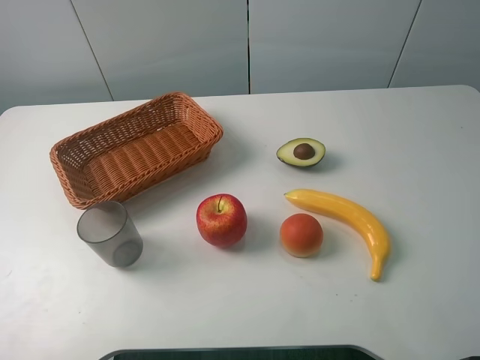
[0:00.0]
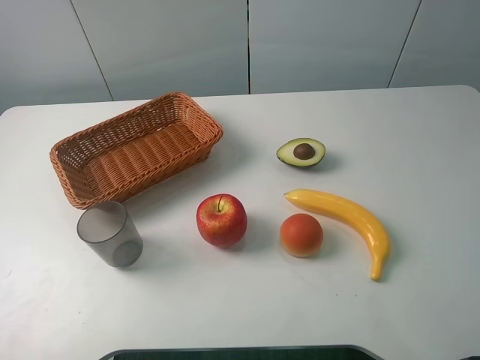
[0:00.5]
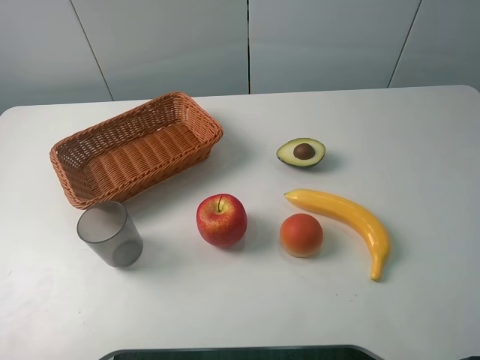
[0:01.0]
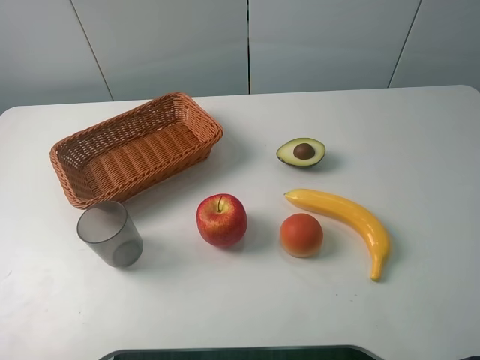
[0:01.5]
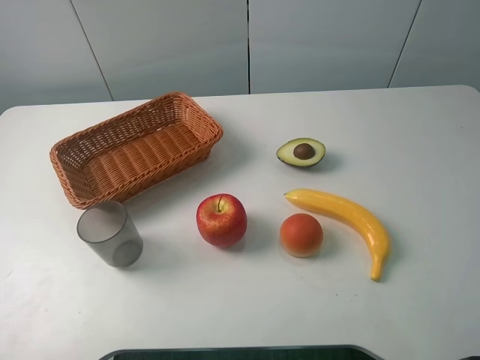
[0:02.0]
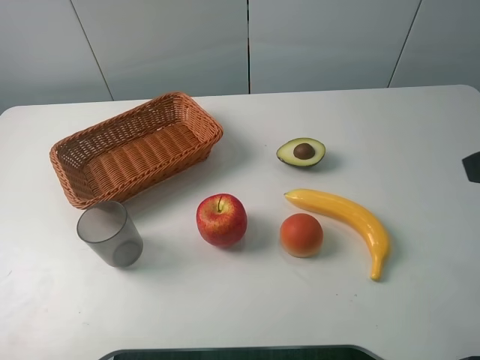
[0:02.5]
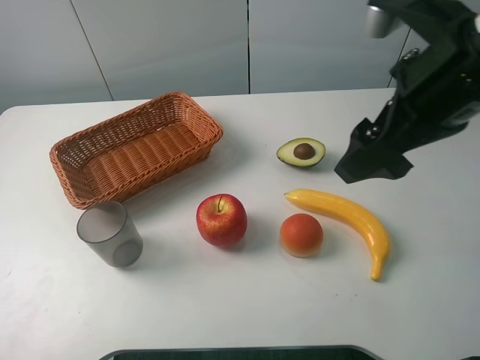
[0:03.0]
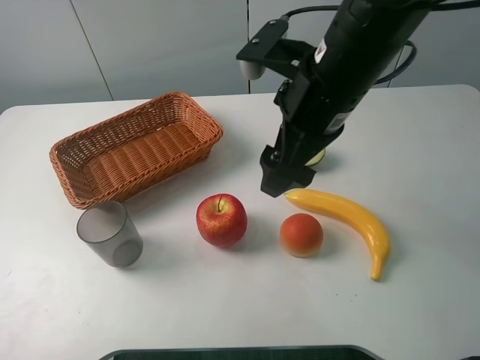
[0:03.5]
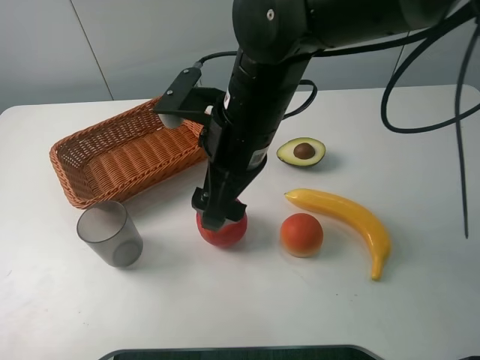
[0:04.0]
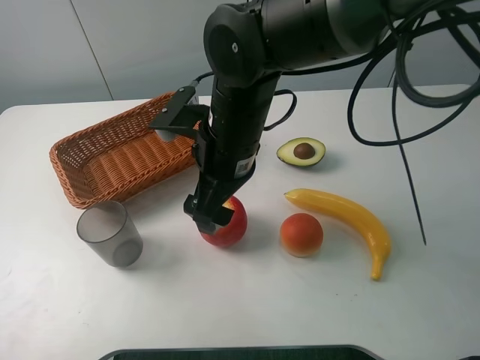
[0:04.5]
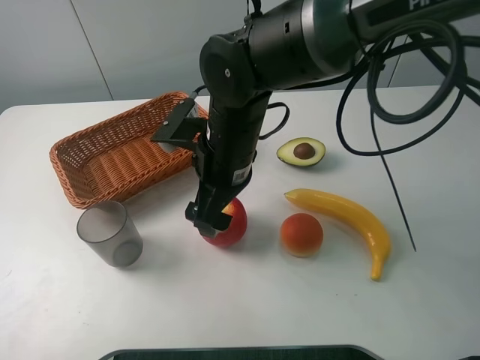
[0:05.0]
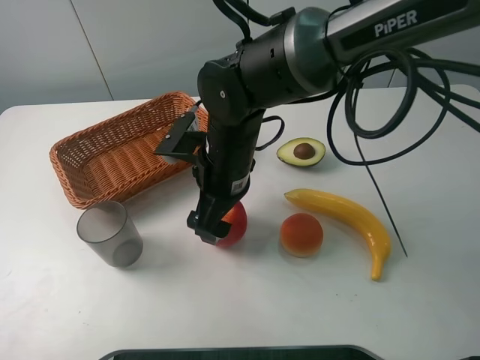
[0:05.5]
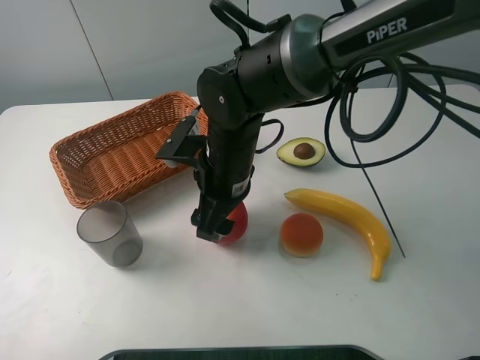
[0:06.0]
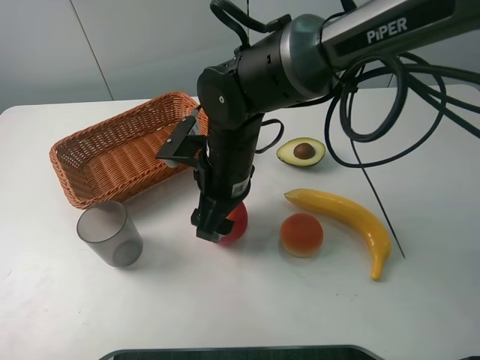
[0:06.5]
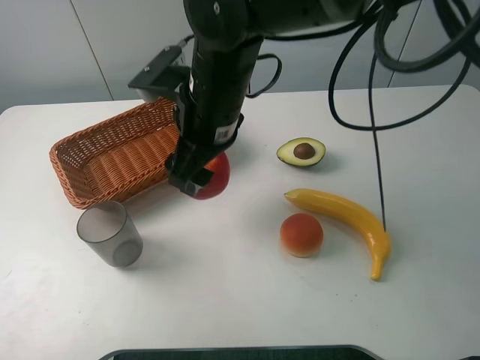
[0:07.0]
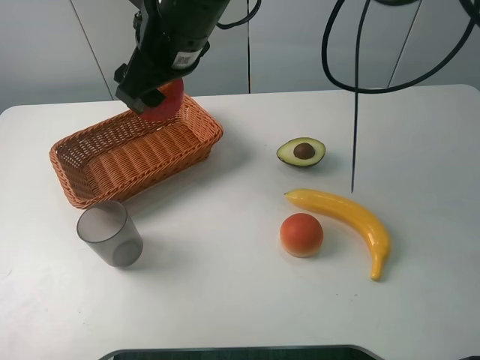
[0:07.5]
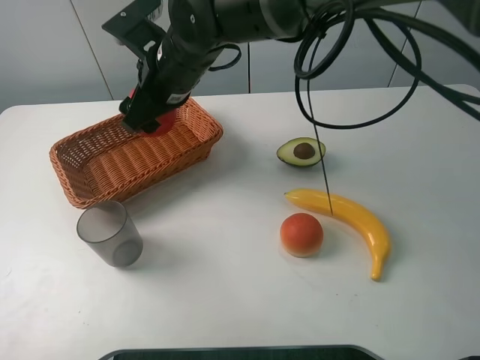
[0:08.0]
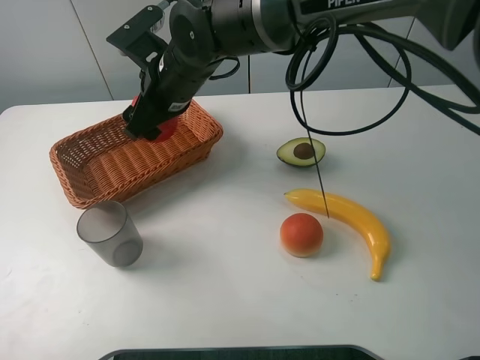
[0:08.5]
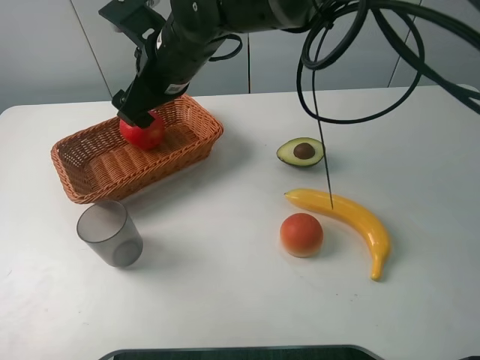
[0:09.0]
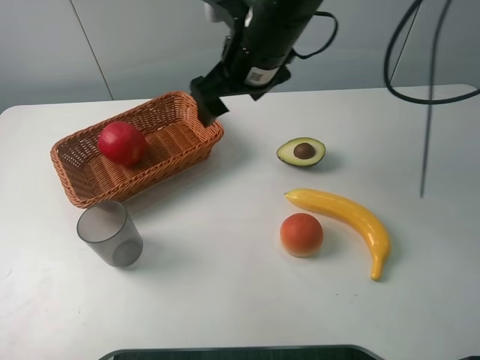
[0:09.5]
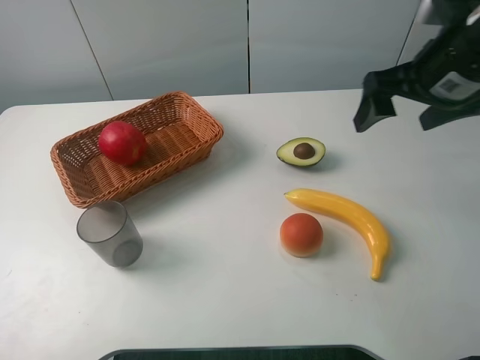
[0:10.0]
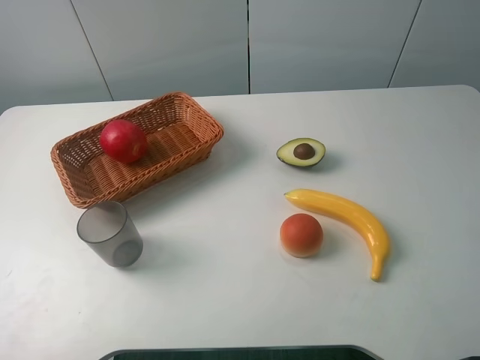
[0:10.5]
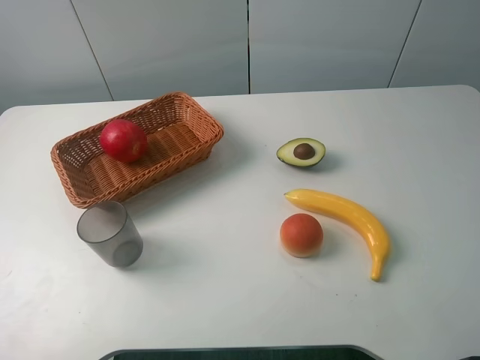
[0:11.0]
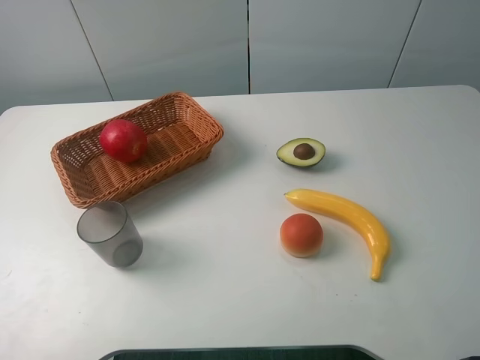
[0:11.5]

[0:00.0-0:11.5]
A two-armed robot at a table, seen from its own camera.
Task of the whole recording: randomly pick up an item from the table and put it in the basket.
Step, 0:00.0 to 0:06.0: Grasp the apple with the right gripper.
Step, 0:06.5 to 0:09.0: Place the apple into the basket with the right gripper.
0:02.0 to 0:04.0: The right gripper goes about 35 cm to the left and forward.
0:04.0 to 0:06.0: The right gripper heads downward, covering about 10 cm, and closes its fingers.
0:06.0 to 0:07.5: The right gripper shifts approximately 15 cm upward.
0:07.5 to 0:09.5: The right gripper goes some 10 cm to the right, and opens its fingers.
0:09.5 to 0:11.5: The right gripper shifts roughly 40 cm backward and to the right.

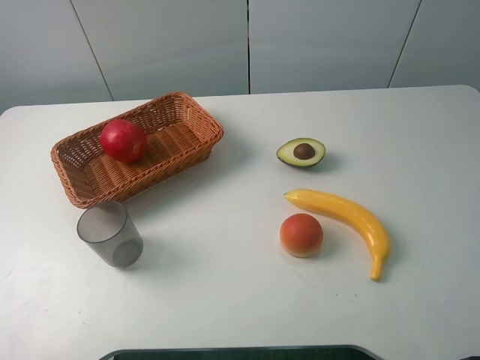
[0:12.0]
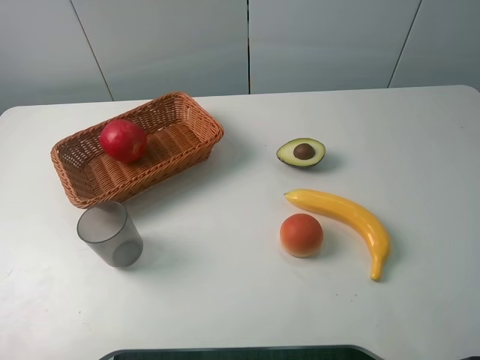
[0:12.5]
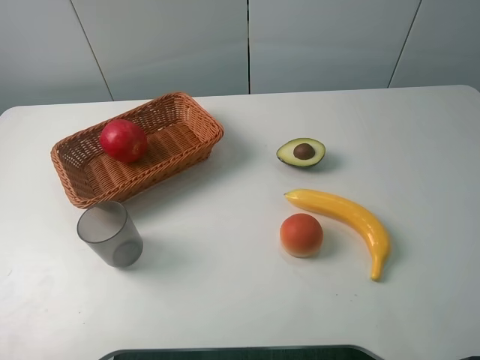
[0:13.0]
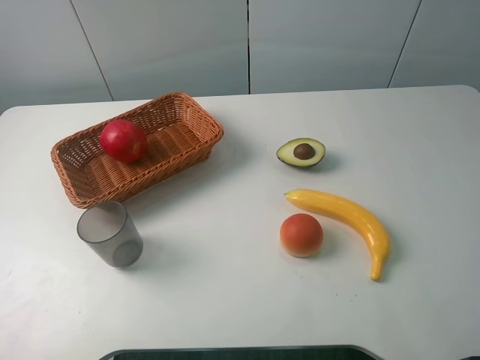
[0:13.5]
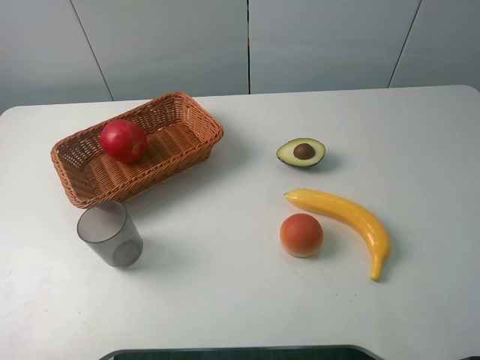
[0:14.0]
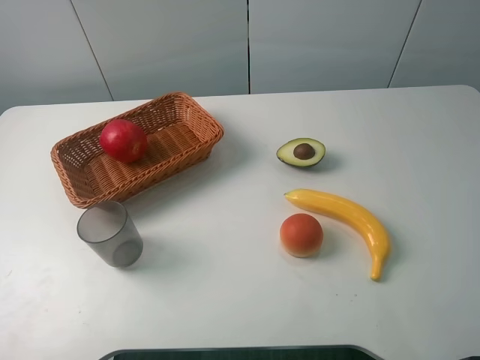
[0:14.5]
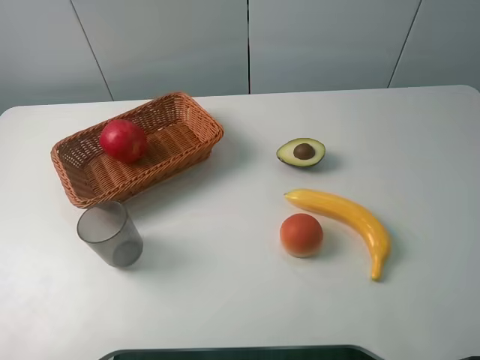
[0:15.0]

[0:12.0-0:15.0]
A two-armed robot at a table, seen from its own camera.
Task of the whole recording: randomly pick up an item from the table and put it in the basket.
0:13.5 to 0:15.0: Both grippers stay put.

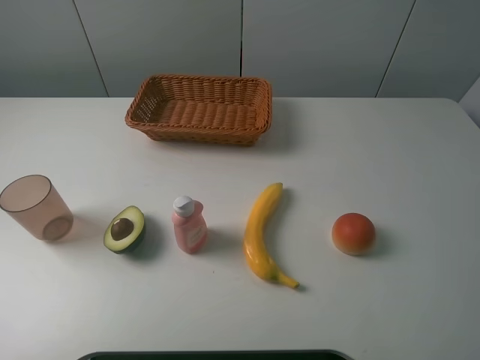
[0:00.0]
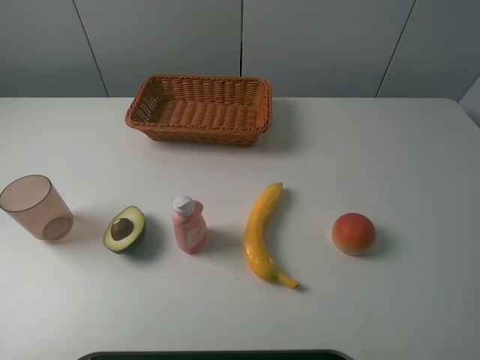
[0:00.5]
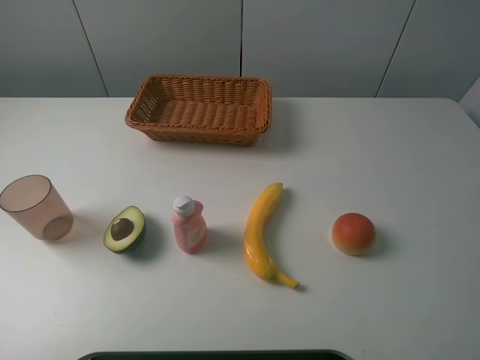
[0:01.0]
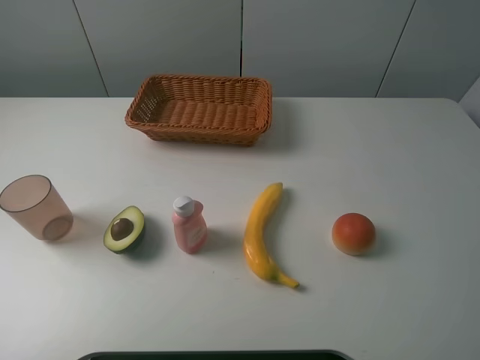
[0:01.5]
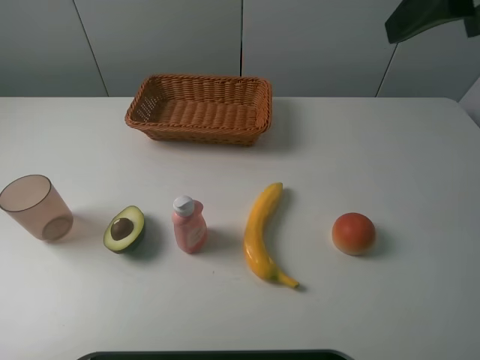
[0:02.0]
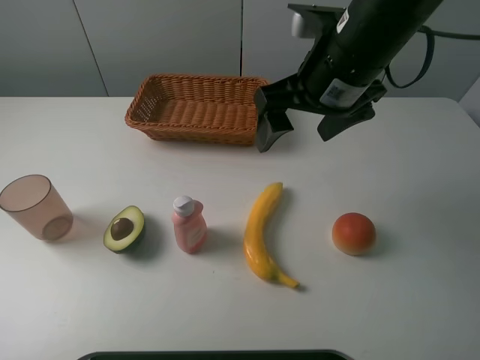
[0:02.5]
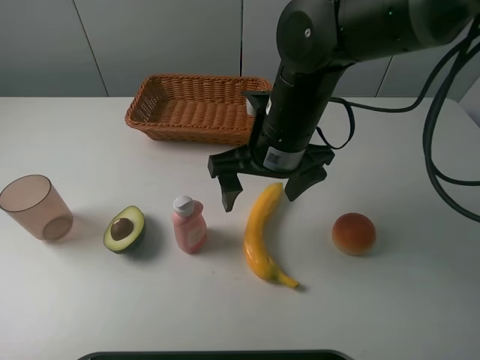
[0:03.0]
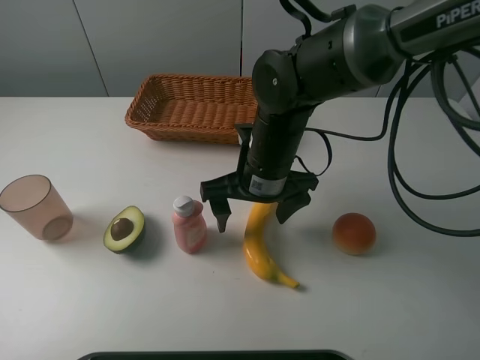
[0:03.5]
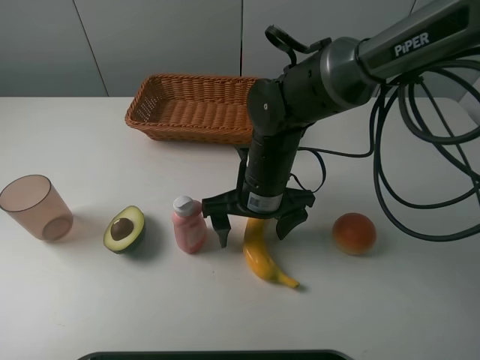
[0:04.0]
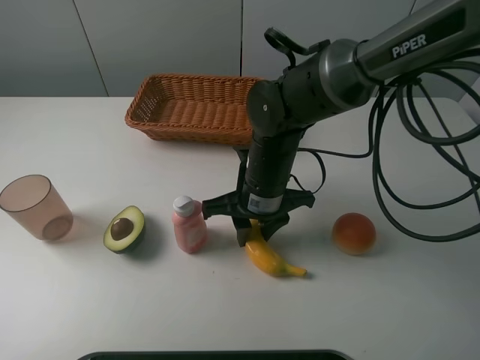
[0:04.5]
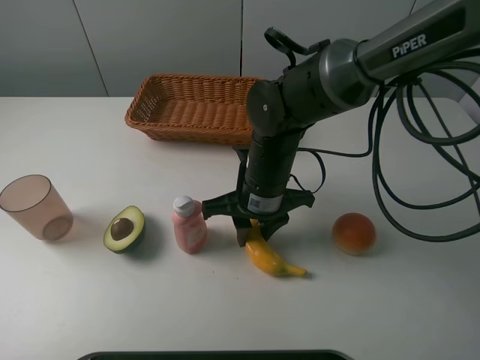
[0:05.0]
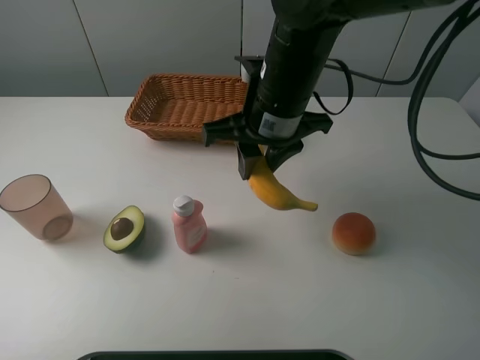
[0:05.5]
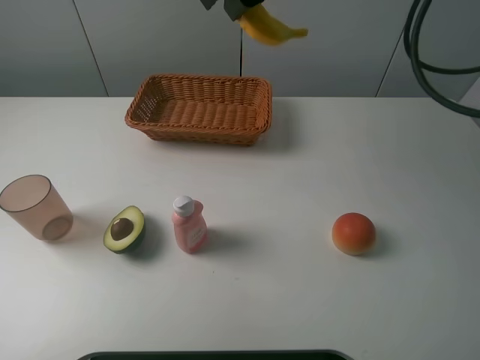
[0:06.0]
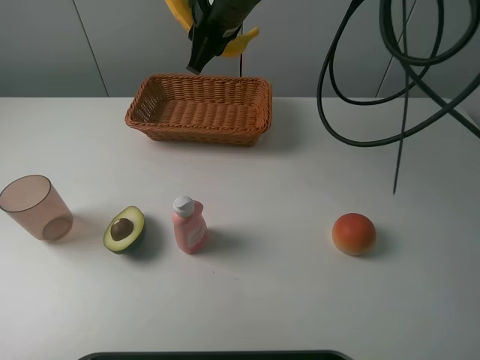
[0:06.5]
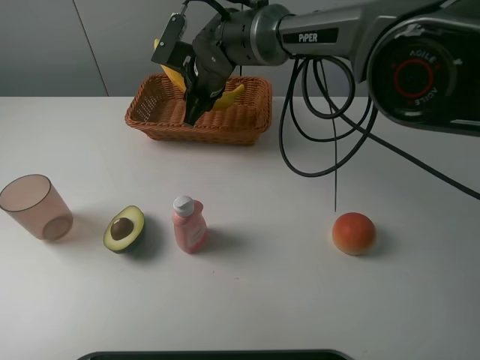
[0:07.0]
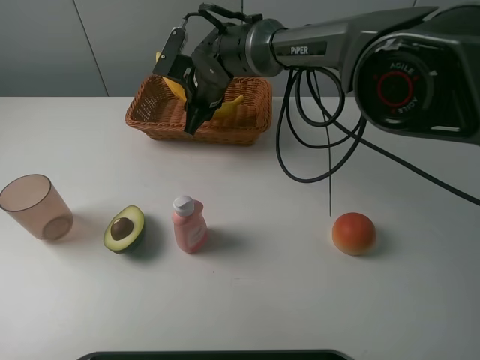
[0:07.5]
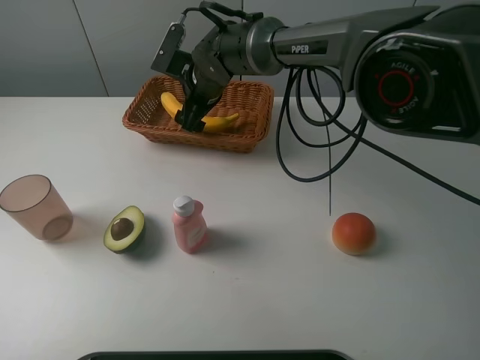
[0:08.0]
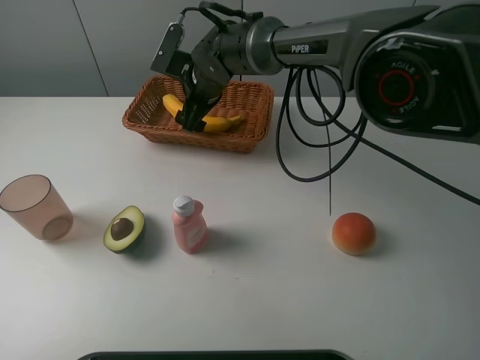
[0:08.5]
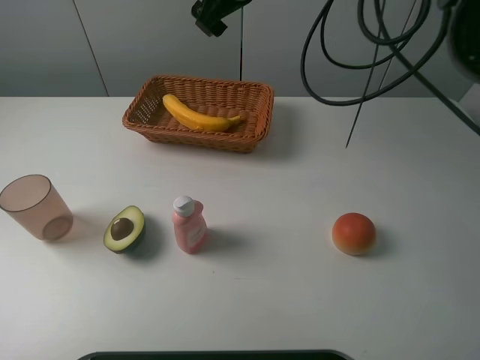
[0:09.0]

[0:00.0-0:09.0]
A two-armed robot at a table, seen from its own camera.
Task of the whole recording: randomly pick up an item from the table and put it in the basket.
Step, 0:00.0 to 0:04.5: Grasp the banana with the right gripper.
Step, 0:05.0 to 0:08.5: Place the banana into the basket with the right gripper.
0:00.0 to 0:02.0: The right gripper moves forward, about 20 cm.
0:02.0 to 0:04.5: The right gripper heads downward and to the left, covering about 30 cm, and closes.
0:04.5 to 0:07.0: The right gripper is displaced forward and to the left by approximately 20 cm, and reaches about 25 cm upward, then returns.
0:07.0 to 0:09.0: The right gripper moves upward, roughly 15 cm, and opens.
